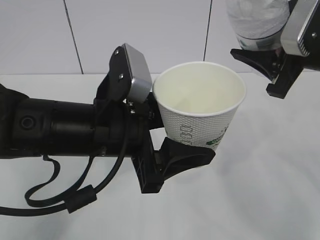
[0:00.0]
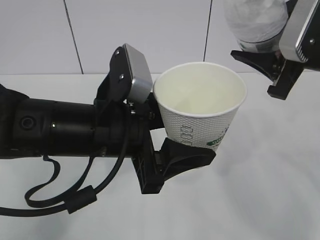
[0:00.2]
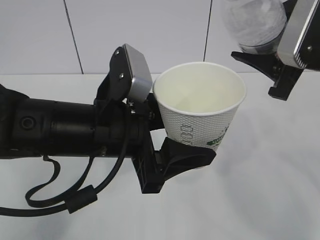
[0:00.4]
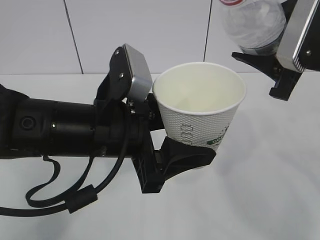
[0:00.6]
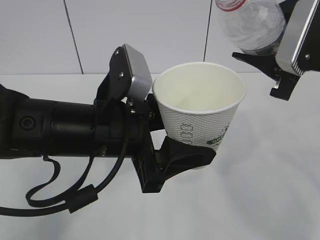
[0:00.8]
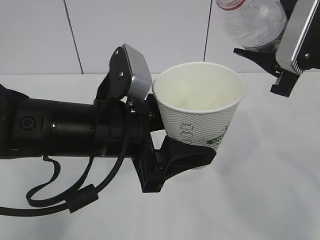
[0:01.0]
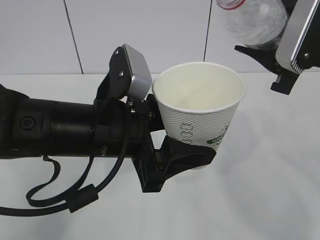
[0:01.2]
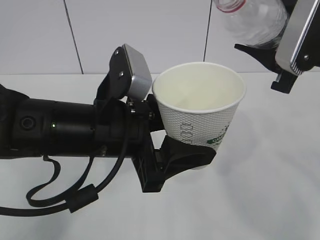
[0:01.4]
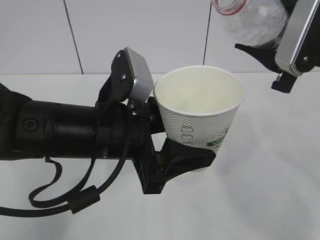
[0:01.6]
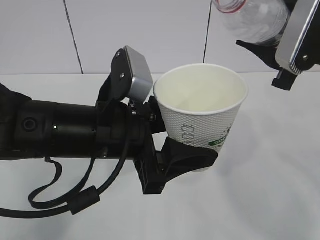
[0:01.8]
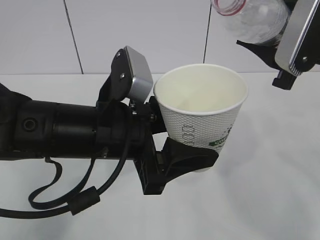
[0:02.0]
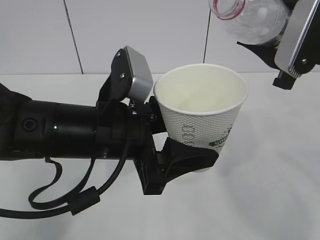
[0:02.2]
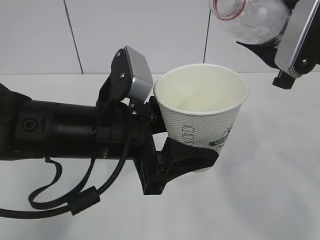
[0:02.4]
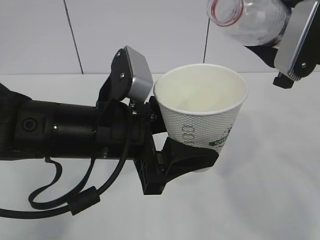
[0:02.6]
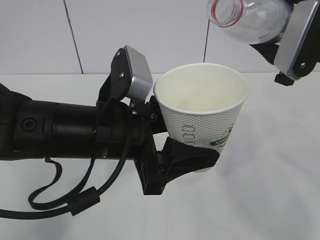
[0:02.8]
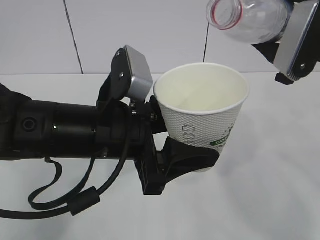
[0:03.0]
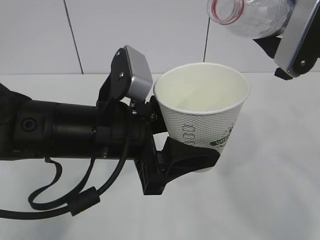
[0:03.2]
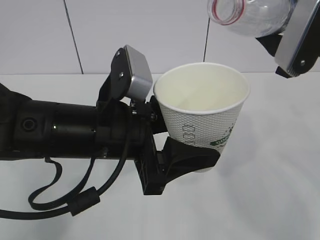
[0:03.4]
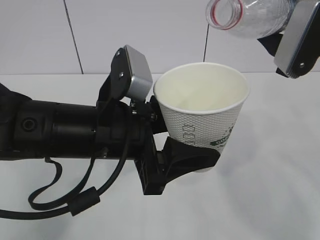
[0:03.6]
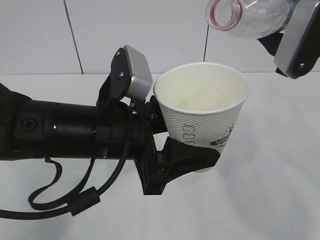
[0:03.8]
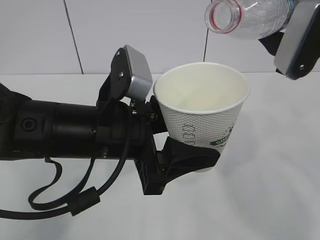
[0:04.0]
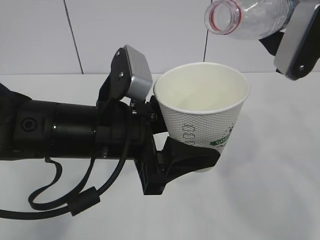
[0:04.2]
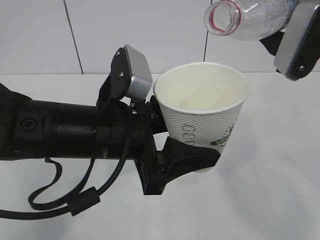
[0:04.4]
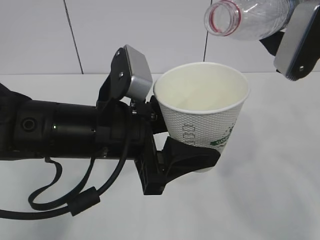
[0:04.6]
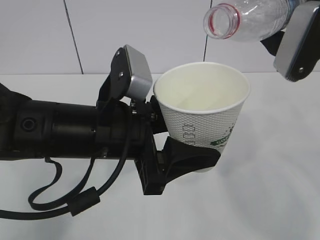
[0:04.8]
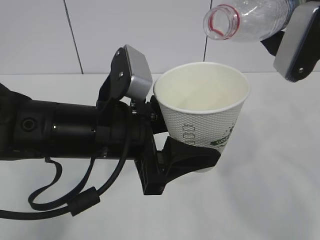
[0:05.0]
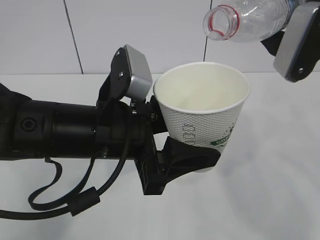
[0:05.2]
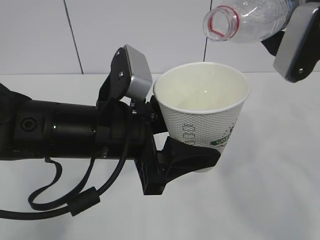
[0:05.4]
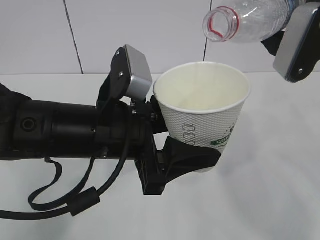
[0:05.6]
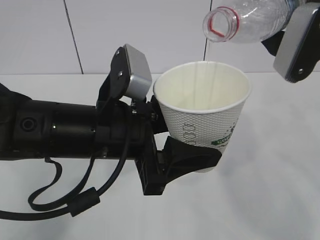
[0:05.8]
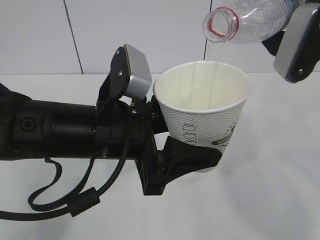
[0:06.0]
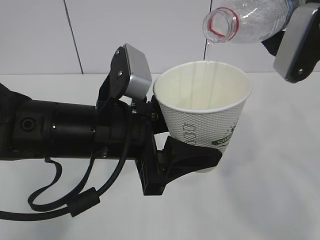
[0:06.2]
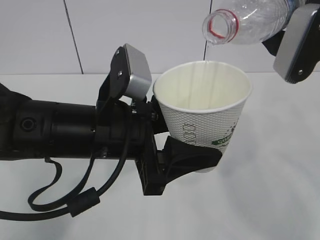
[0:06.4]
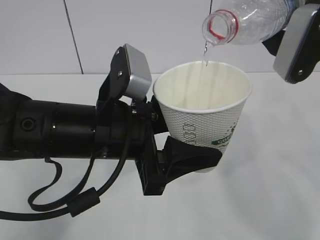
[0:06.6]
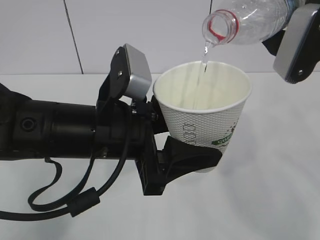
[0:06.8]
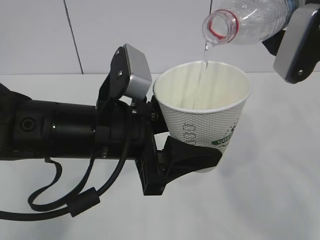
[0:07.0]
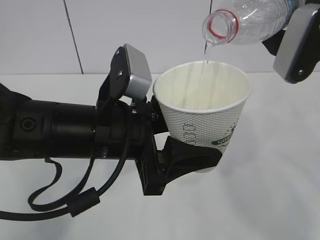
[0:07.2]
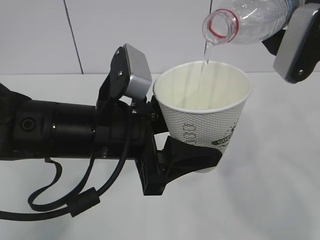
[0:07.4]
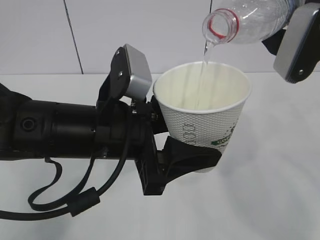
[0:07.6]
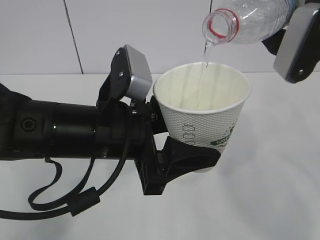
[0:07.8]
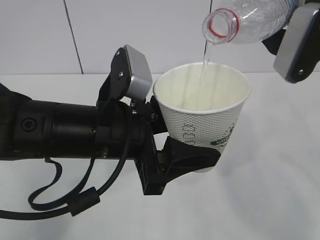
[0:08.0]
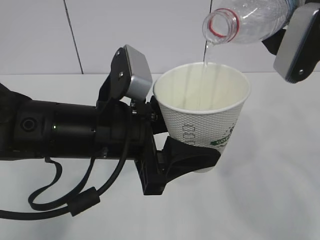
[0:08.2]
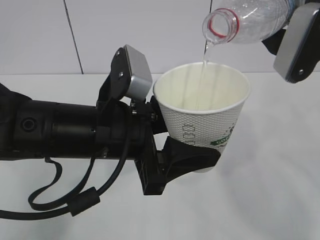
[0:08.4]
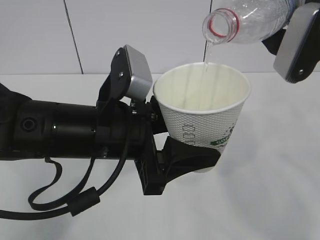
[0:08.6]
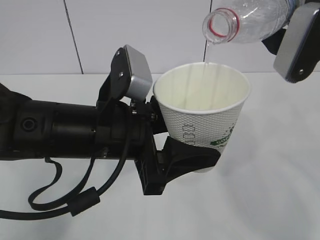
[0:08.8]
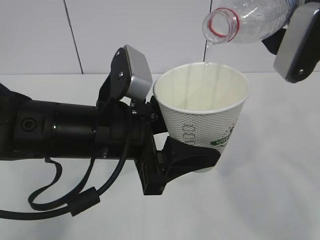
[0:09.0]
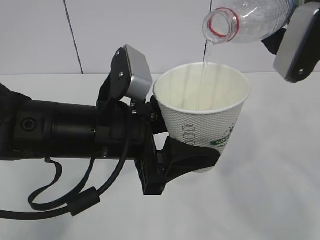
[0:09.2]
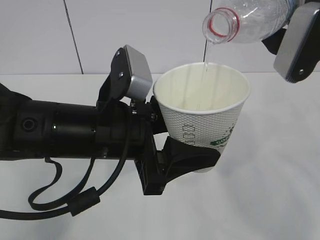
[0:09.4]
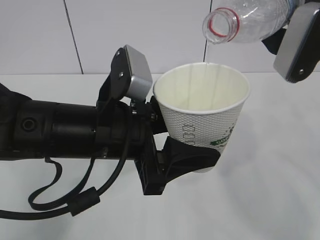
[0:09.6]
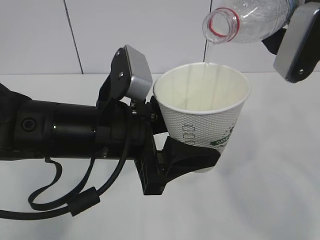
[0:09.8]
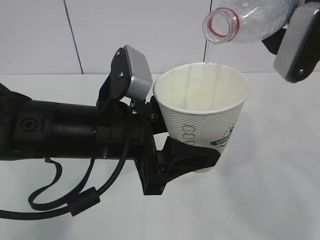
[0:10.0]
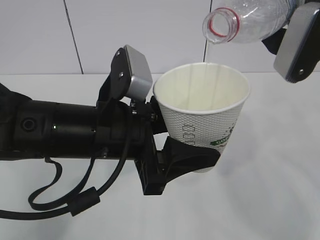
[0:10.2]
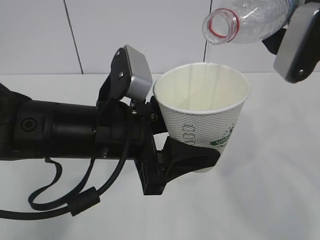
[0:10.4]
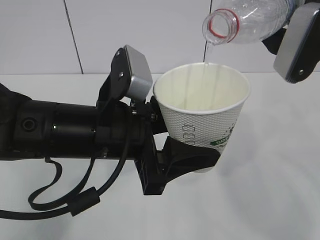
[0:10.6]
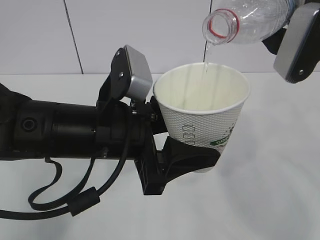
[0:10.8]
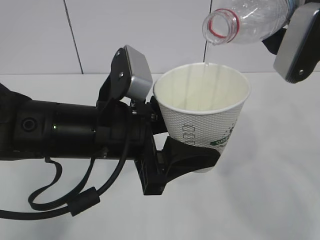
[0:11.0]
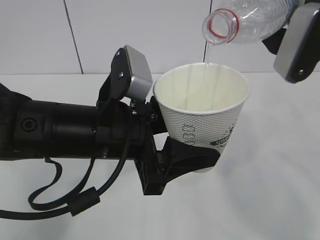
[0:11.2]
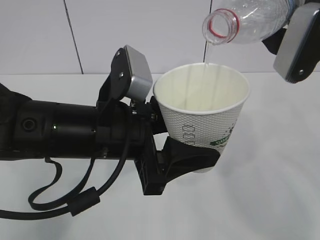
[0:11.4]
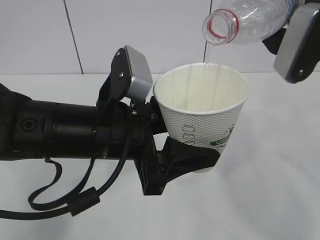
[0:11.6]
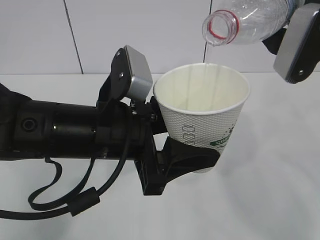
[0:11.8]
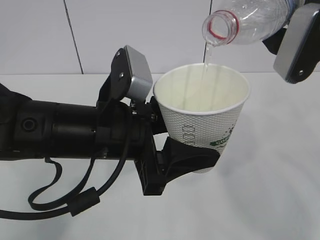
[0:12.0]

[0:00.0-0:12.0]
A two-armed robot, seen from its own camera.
0:00.0 to 0:01.6: The grippers stay close to where they were, moving slightly.
0:01.6 to 0:04.4: There are only small adjustments of the grippers.
0:04.4 to 0:10.4: The two grippers keep their place.
0:10.4 to 0:12.0: Both grippers stay put.

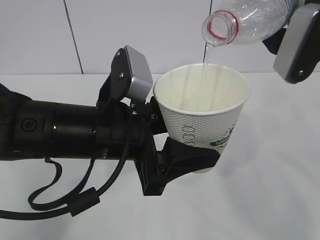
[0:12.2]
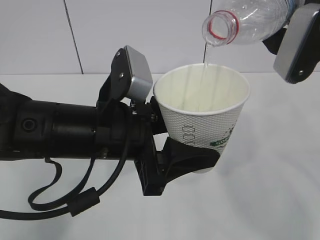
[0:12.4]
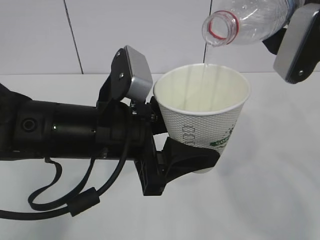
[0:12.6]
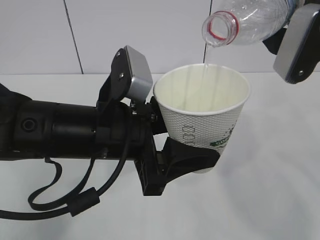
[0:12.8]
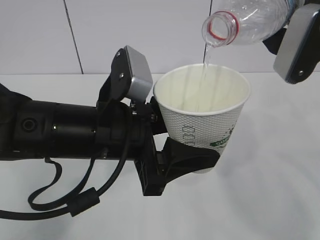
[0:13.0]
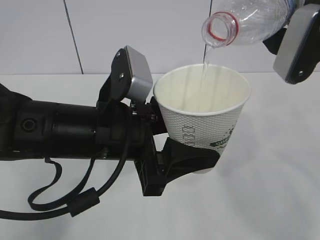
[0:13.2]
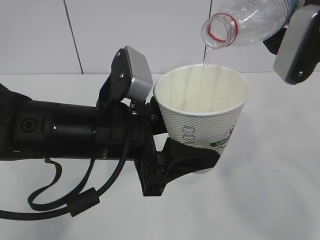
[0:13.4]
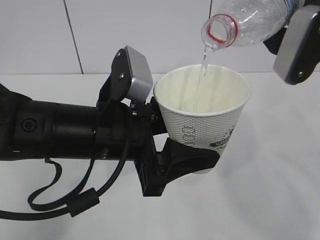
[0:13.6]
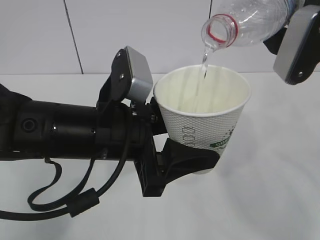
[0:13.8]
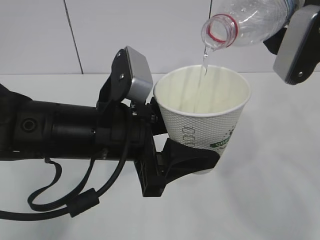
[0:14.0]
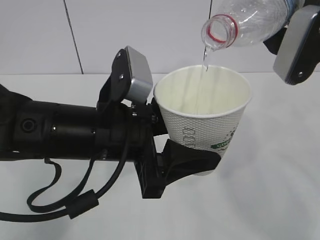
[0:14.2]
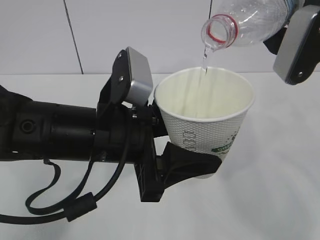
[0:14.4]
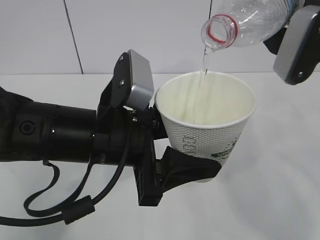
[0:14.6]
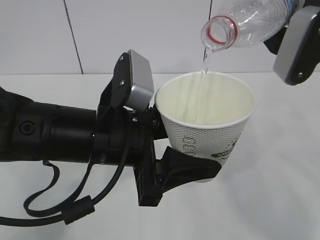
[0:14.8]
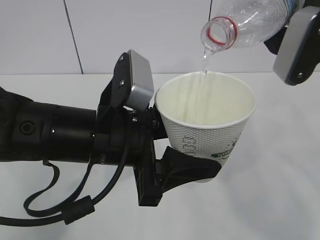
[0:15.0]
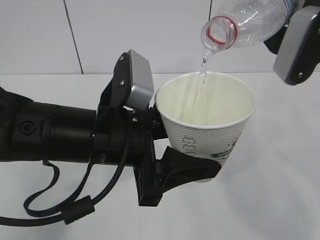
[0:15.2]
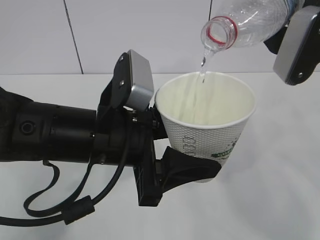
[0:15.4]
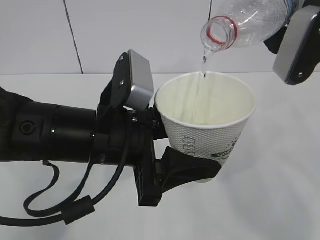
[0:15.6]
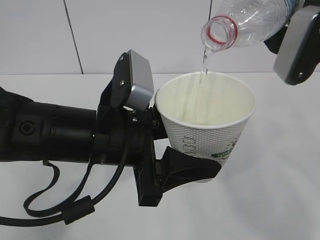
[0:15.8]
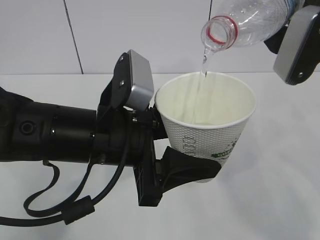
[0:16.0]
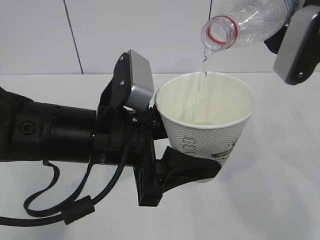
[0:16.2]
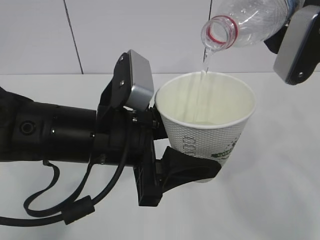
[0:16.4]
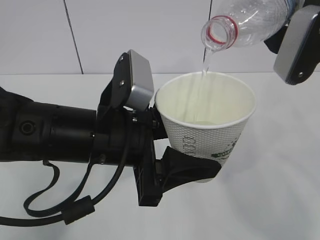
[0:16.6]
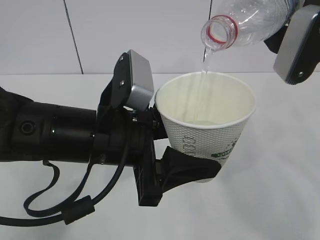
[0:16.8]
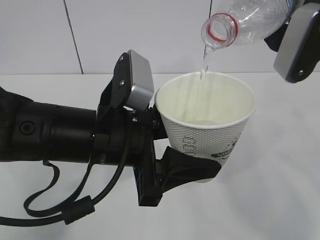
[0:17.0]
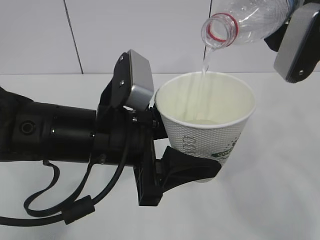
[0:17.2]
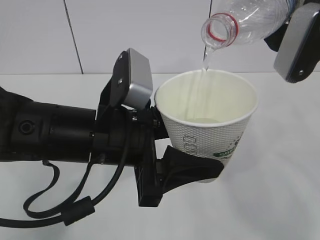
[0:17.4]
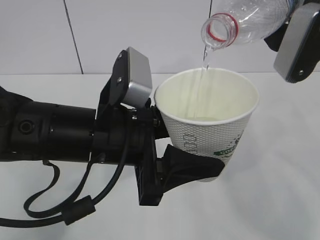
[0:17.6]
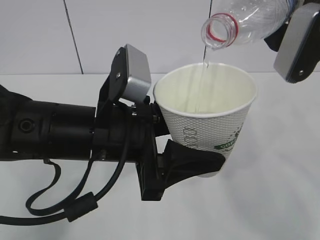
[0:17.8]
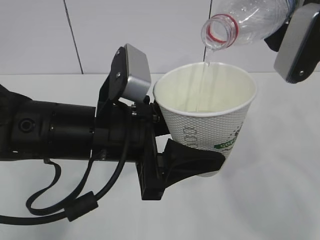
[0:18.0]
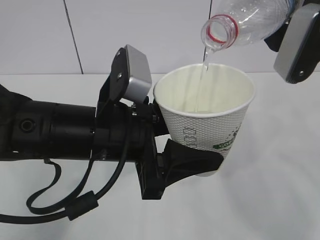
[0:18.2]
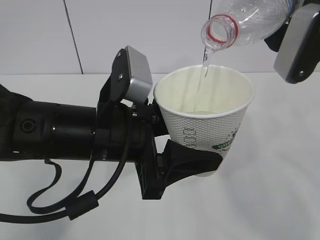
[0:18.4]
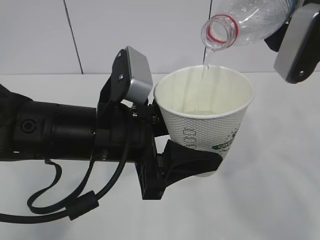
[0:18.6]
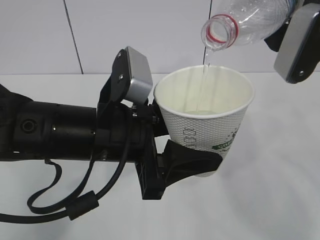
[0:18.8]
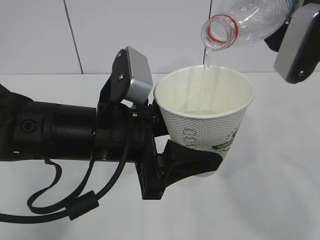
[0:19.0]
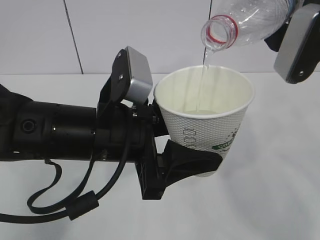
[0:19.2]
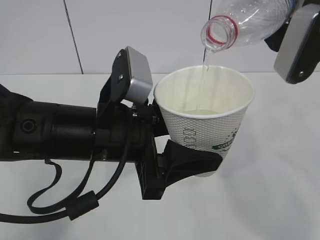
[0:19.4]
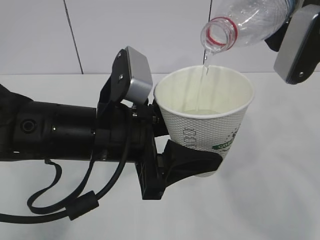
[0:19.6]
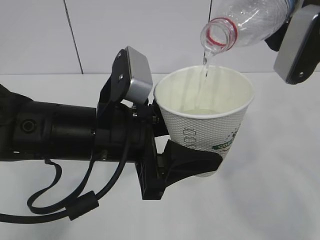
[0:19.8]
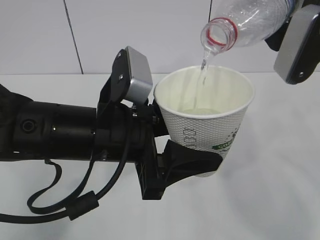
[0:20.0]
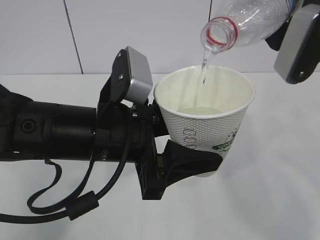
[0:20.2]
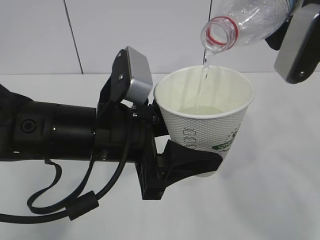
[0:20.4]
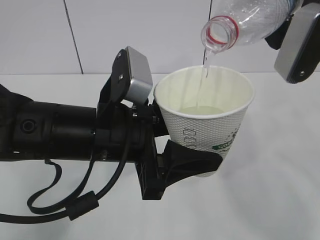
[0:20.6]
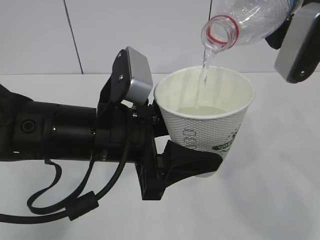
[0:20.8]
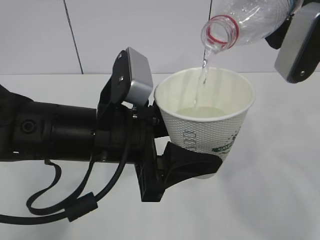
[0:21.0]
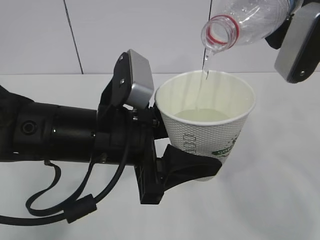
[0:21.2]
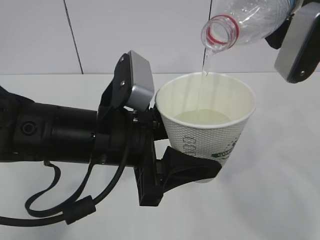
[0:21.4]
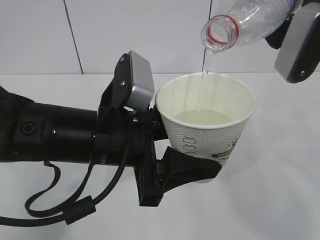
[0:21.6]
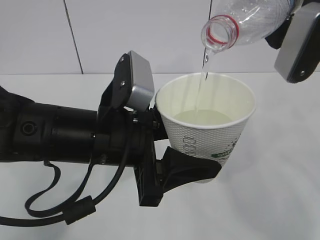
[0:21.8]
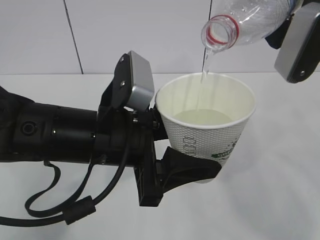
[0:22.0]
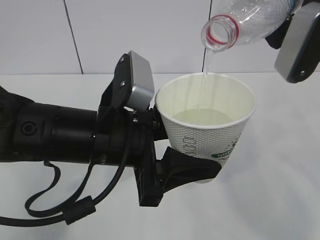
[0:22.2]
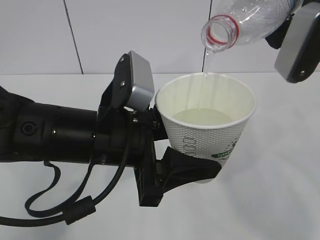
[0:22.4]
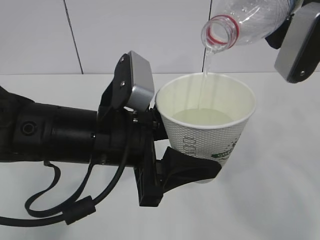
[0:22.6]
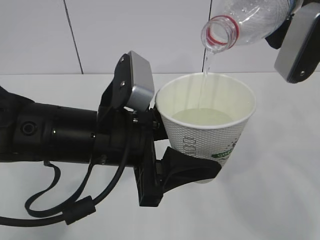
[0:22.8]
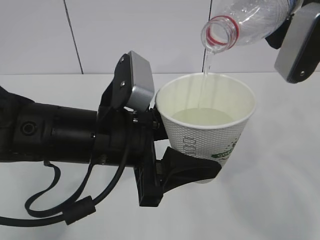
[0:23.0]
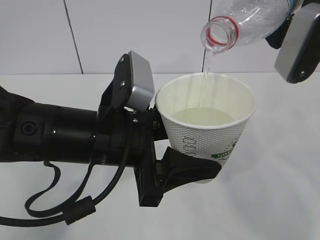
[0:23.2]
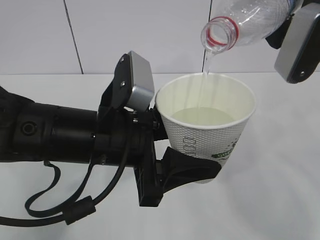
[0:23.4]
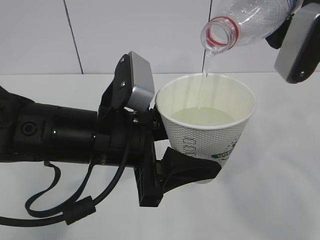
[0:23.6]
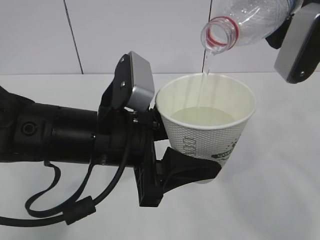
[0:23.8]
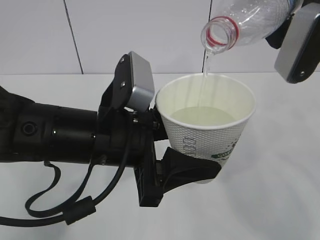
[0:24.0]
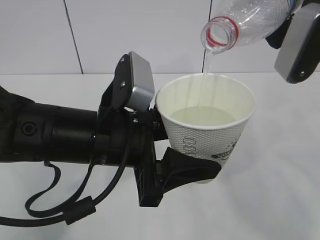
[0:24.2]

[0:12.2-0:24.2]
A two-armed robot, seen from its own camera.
0:12.2 to 0:16.6: The two grippers keep their place.
0:16.6 to 0:24.2: Both grippers stay put.
